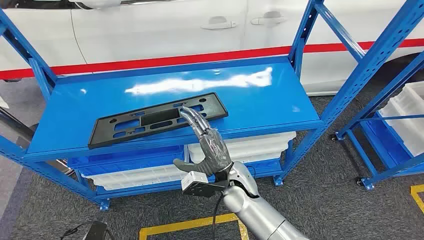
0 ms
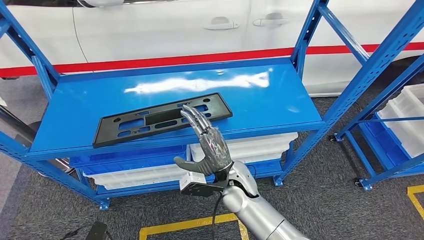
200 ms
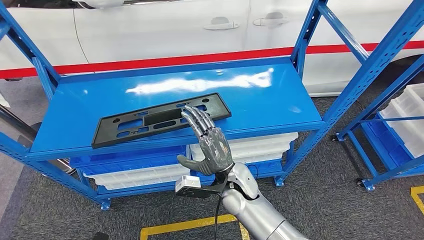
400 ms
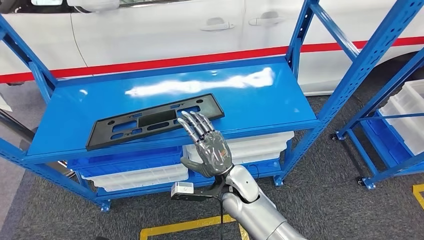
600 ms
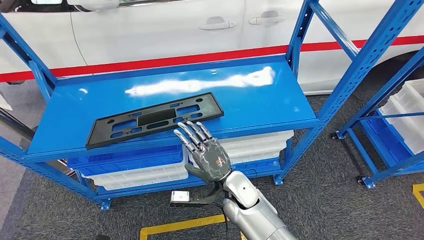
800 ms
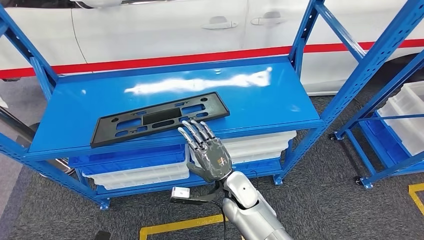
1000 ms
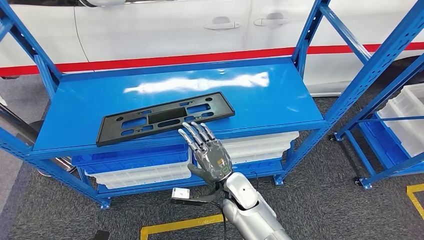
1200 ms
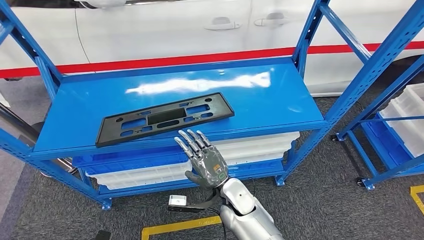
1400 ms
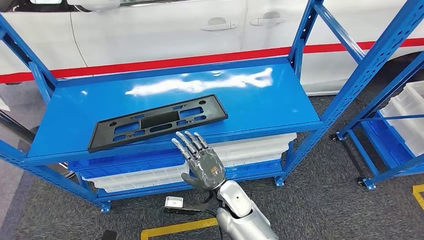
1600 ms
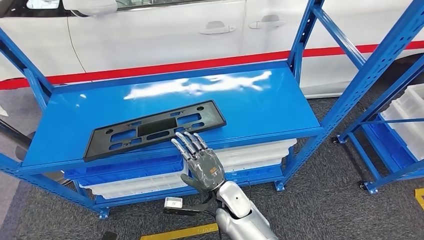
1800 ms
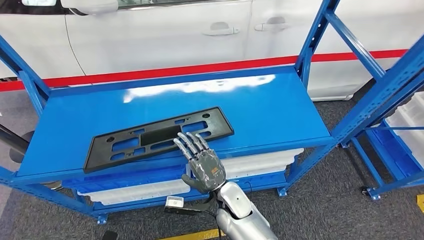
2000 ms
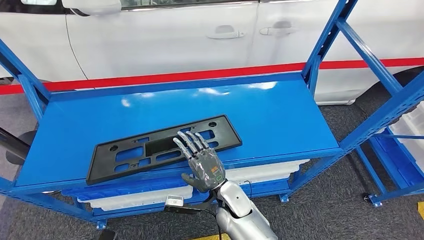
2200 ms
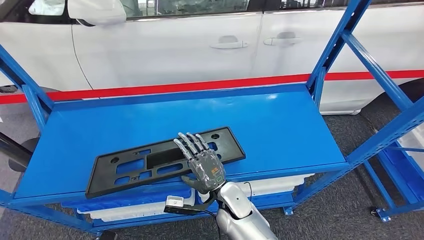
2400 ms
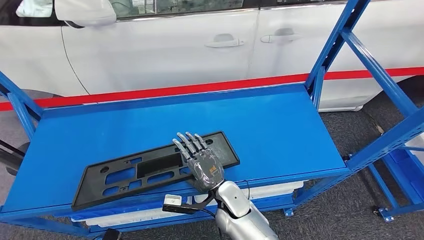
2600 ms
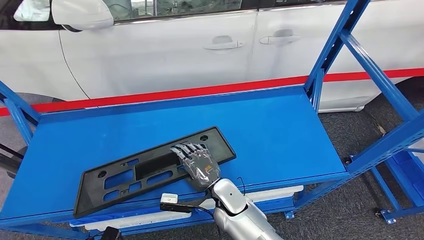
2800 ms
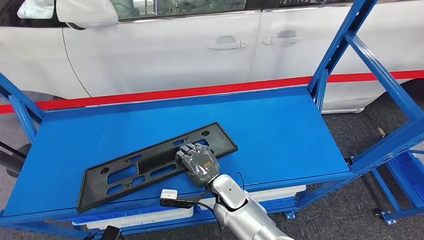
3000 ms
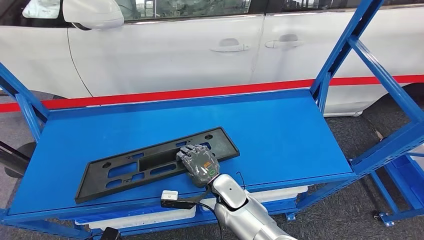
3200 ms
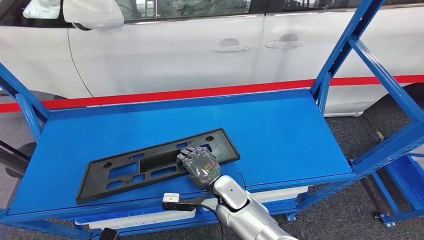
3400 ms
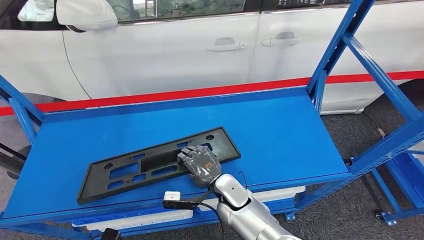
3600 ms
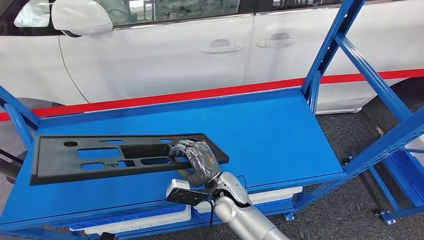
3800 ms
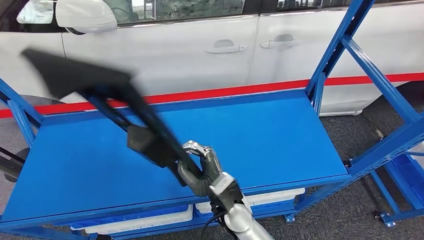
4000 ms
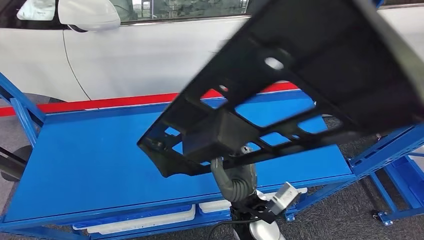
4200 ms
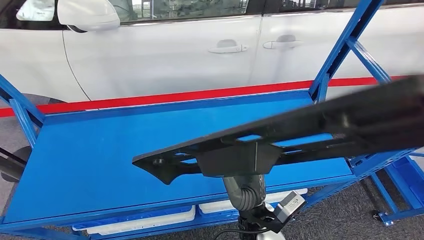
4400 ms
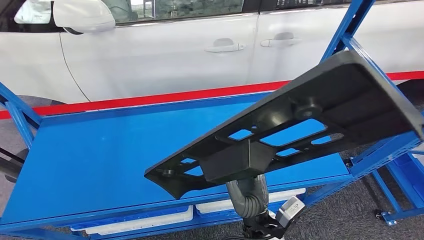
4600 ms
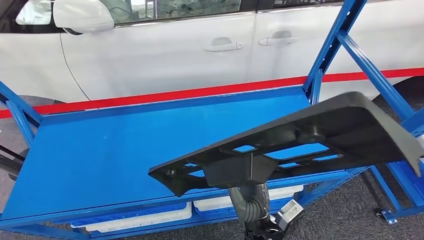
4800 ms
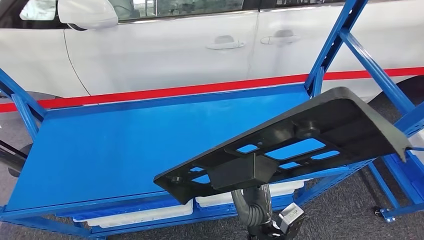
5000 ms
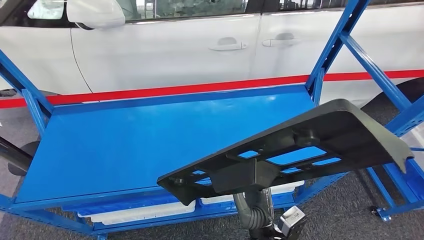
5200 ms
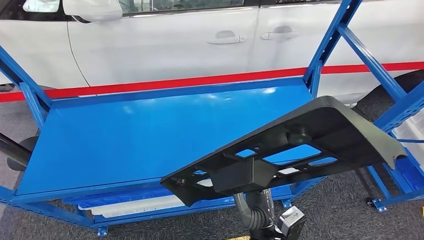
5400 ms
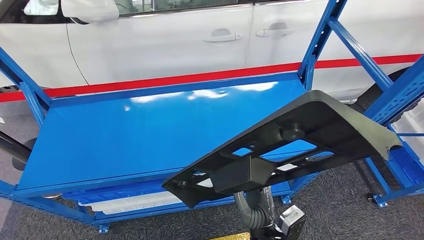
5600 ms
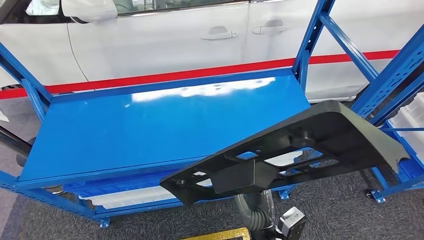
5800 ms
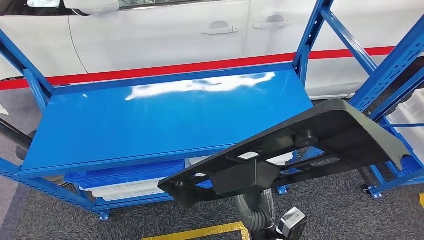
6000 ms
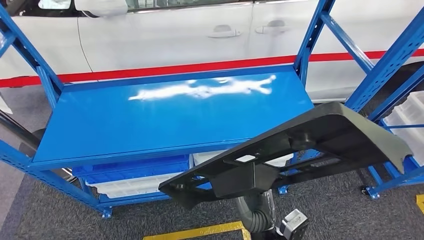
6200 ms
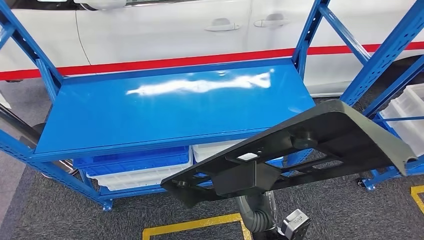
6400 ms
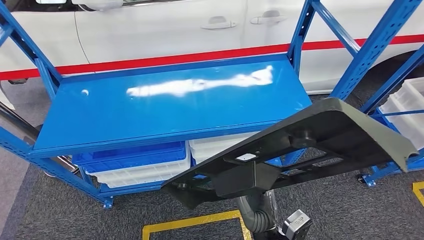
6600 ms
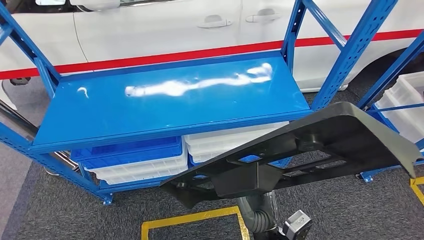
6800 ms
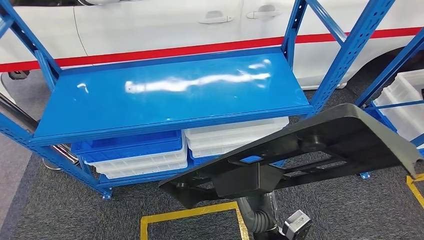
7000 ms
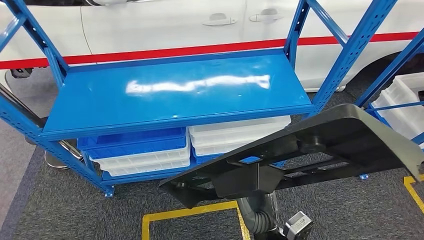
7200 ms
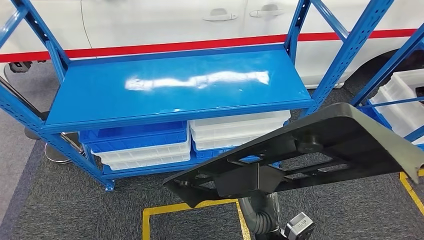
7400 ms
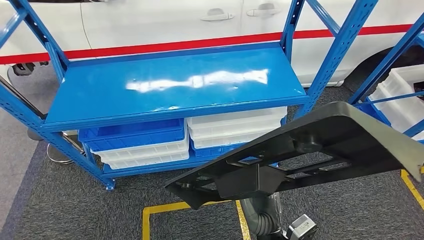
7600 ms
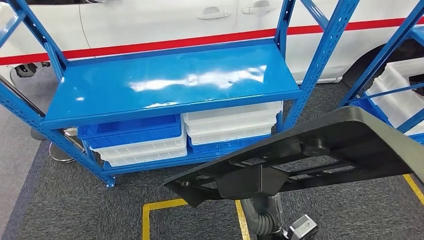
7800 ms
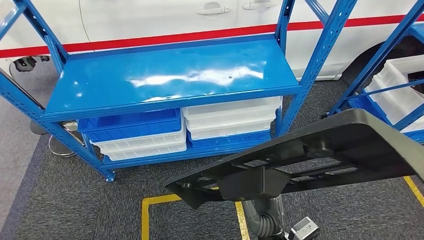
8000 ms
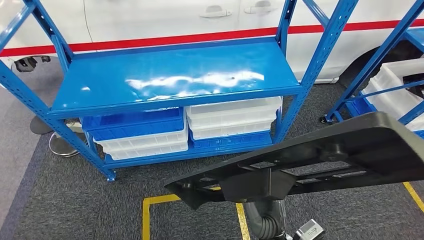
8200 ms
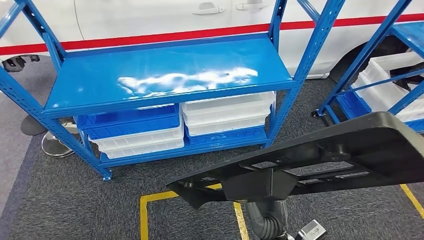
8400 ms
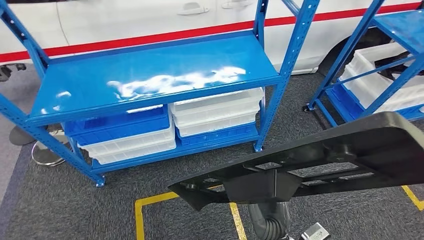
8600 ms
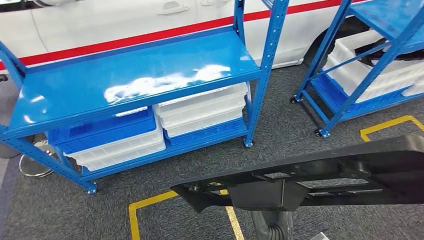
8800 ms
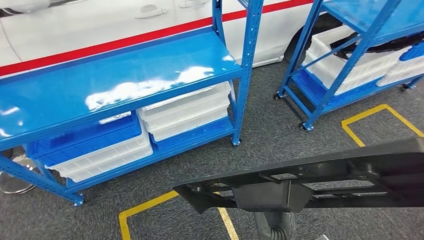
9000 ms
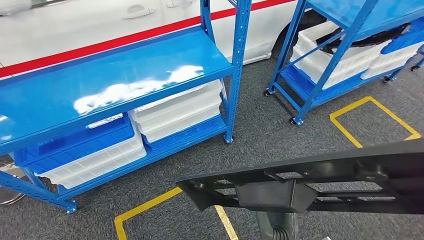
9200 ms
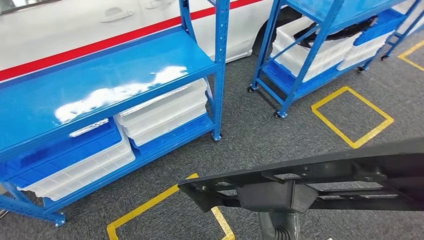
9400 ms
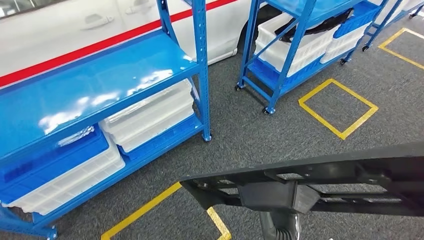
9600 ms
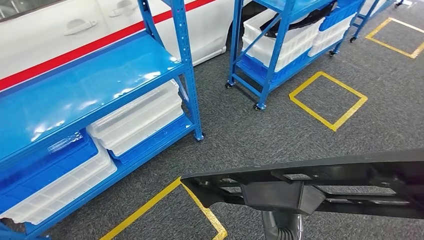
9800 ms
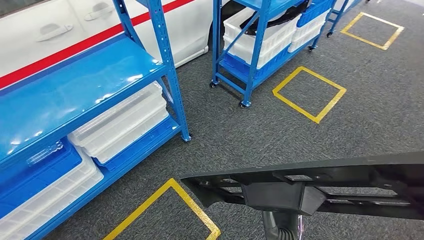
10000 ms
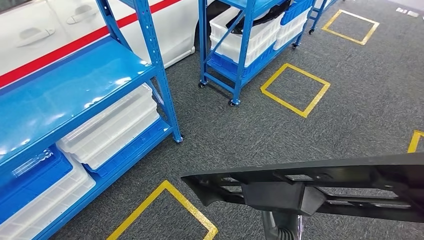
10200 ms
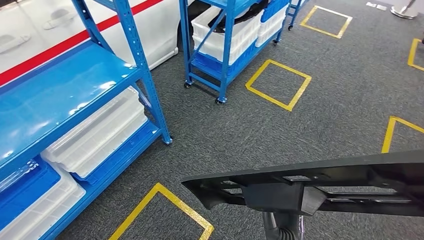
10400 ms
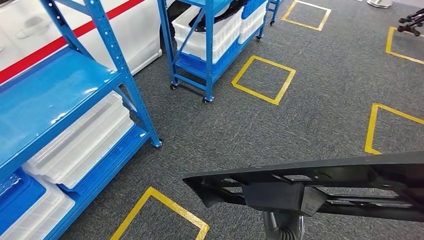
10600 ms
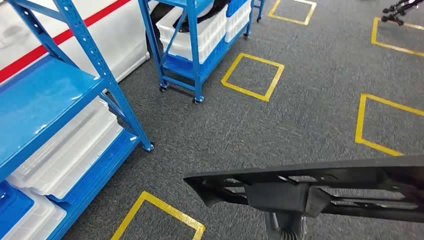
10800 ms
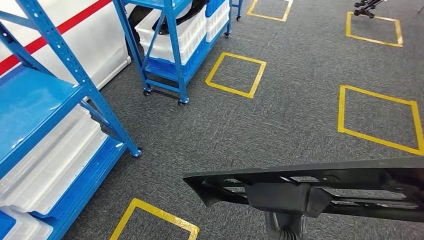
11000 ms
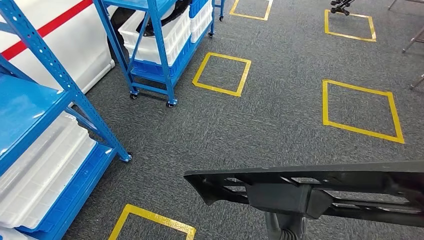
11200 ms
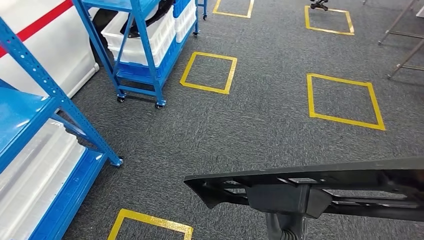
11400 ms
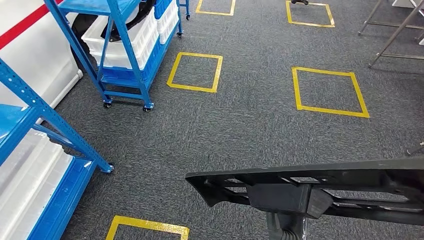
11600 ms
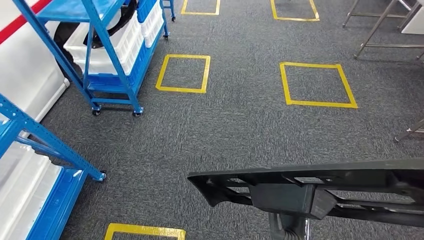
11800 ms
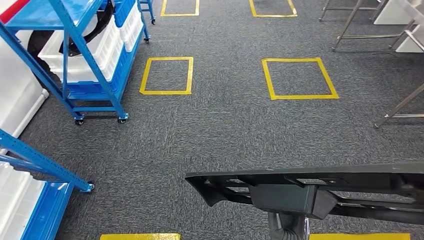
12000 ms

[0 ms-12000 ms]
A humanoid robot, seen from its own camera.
Step, 0 ms to 6800 ms: Pick up the large material from the shelf.

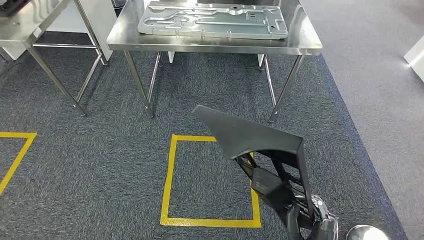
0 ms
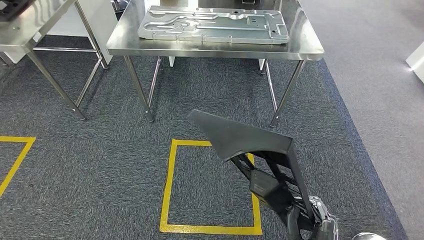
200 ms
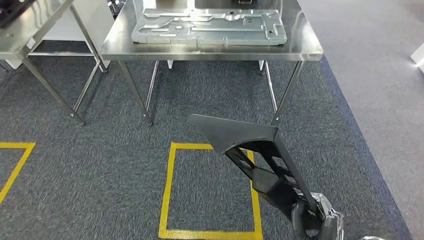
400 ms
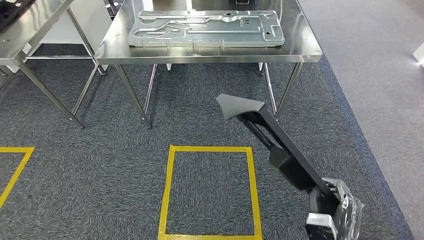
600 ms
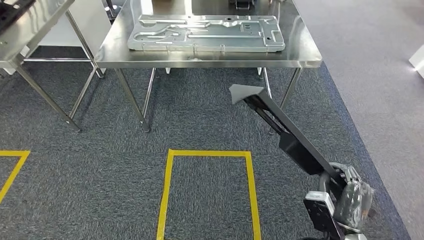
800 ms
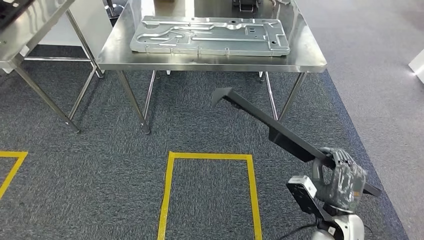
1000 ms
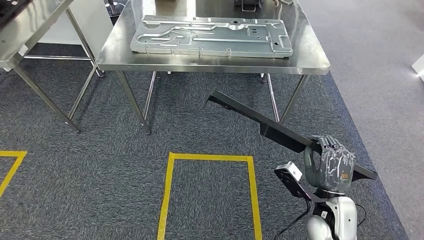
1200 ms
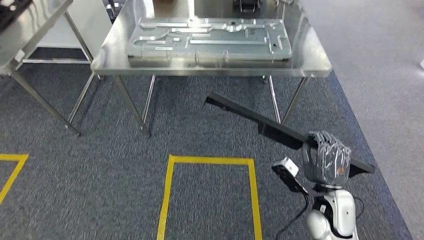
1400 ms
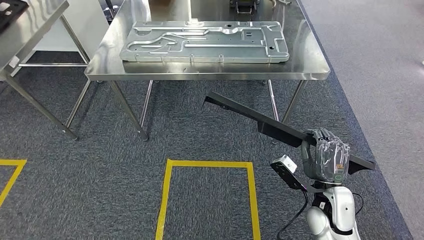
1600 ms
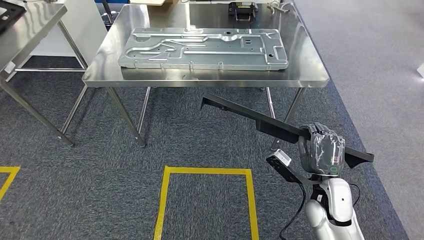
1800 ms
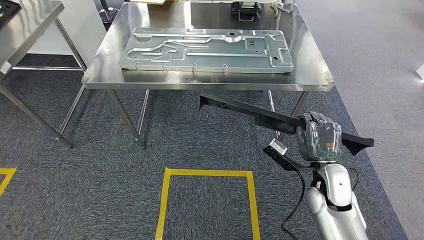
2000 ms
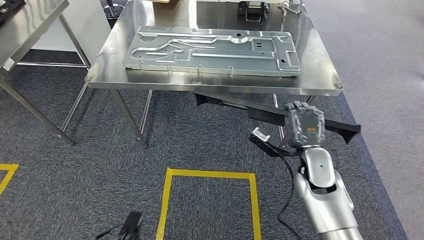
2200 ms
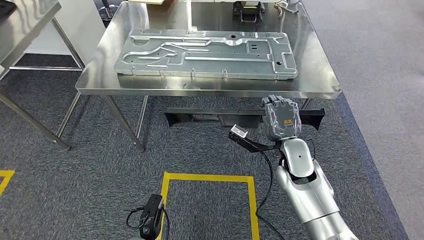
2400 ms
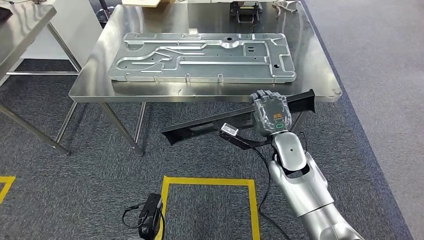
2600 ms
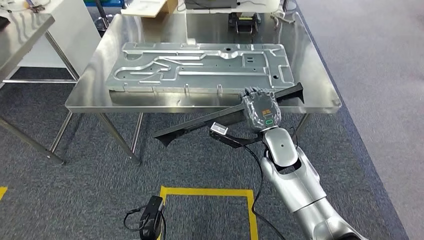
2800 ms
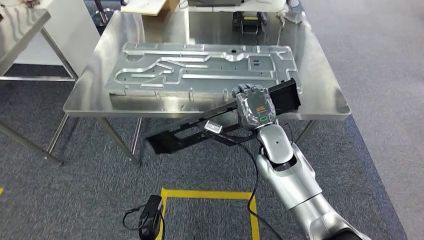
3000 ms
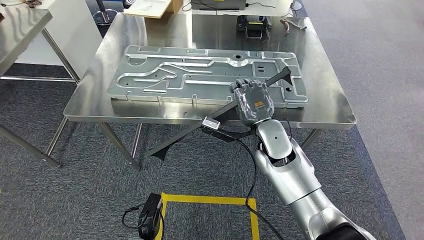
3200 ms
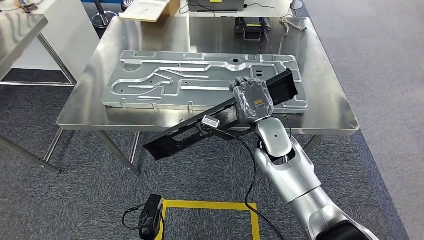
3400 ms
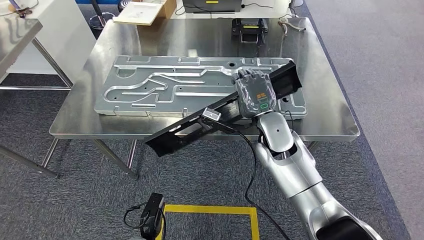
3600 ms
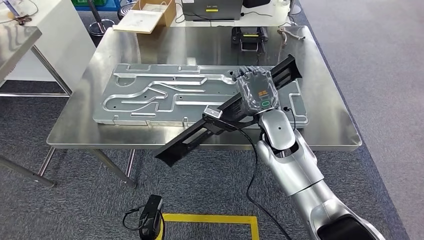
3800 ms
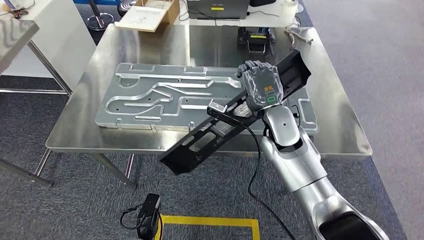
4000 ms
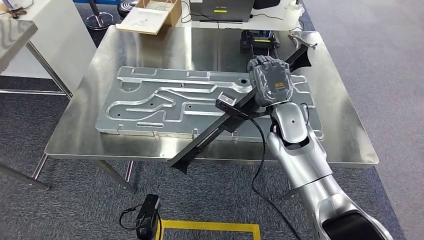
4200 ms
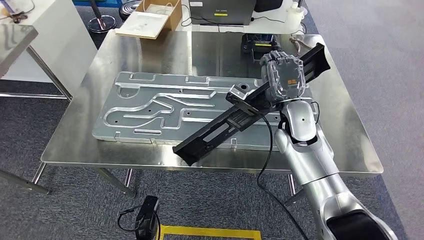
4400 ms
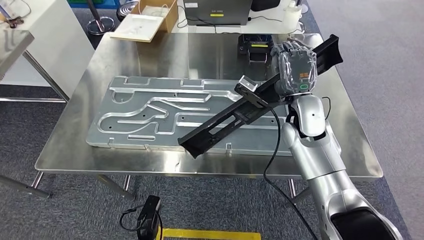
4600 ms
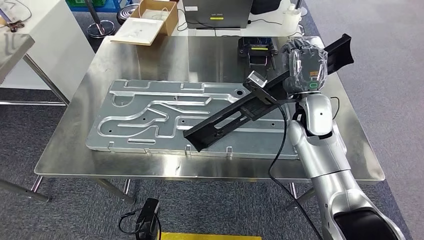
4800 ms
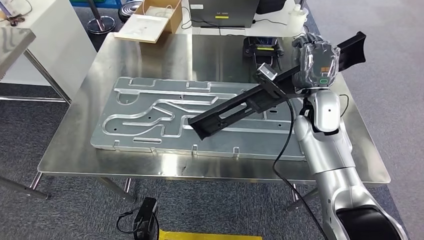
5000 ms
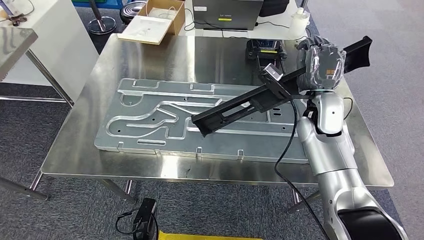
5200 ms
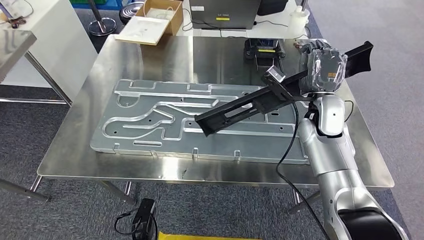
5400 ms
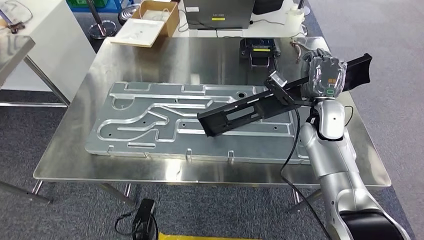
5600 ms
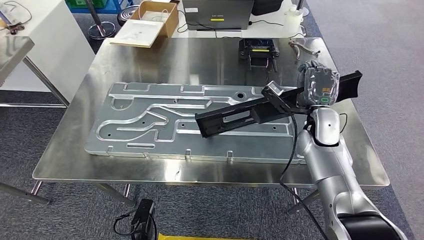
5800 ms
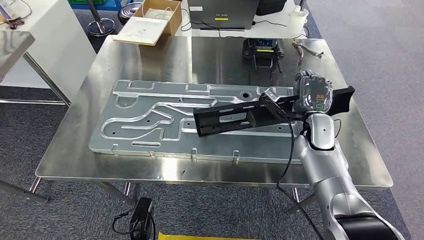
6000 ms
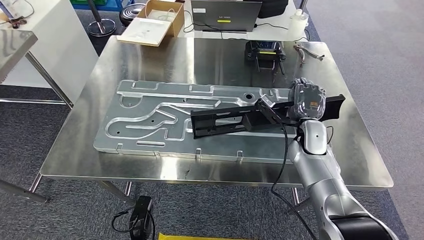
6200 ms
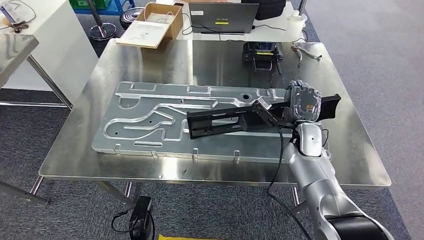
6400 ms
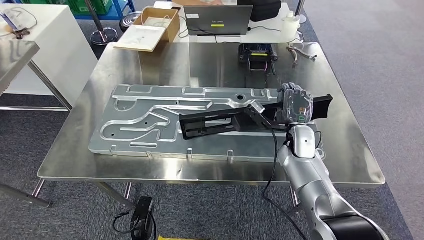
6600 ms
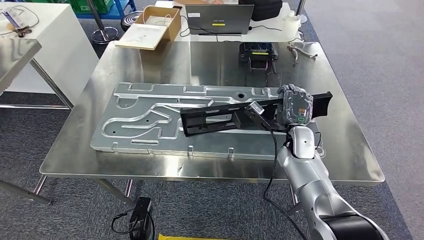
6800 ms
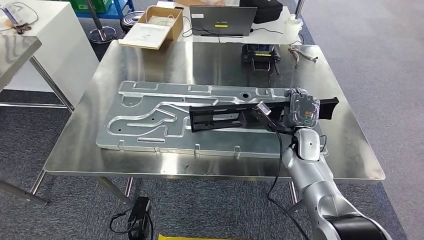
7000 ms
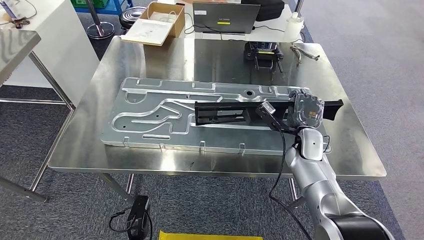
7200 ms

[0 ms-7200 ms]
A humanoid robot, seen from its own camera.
Step, 0 ms to 4600 ms: Move the large material to the workbench.
